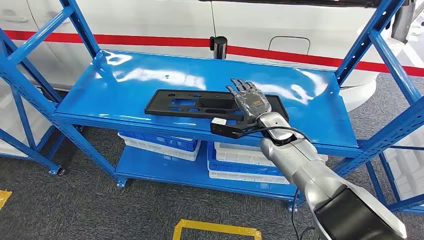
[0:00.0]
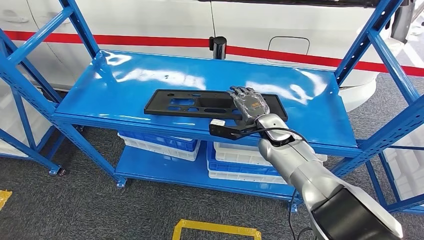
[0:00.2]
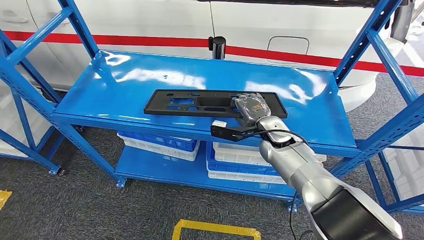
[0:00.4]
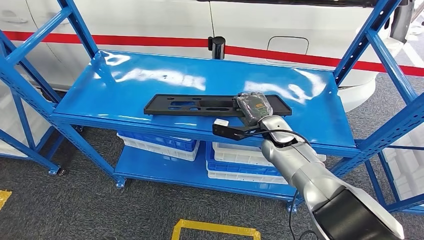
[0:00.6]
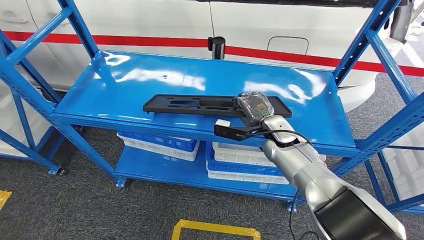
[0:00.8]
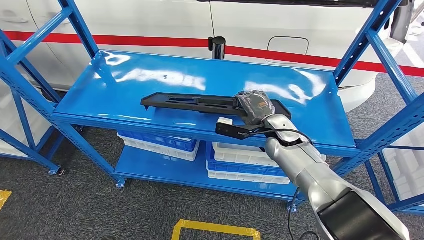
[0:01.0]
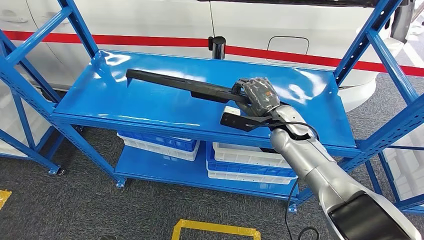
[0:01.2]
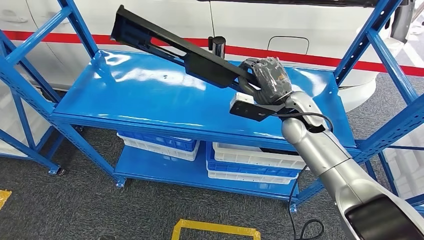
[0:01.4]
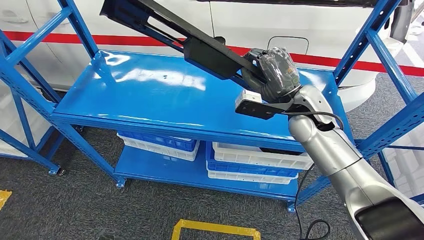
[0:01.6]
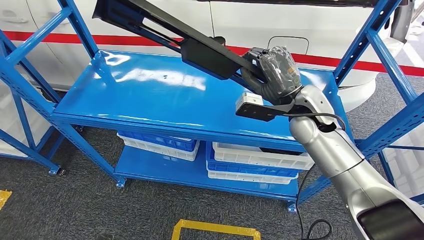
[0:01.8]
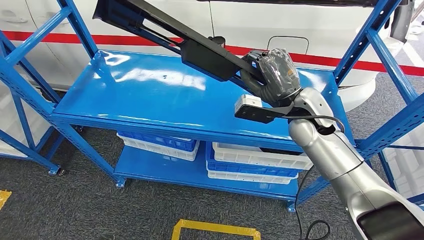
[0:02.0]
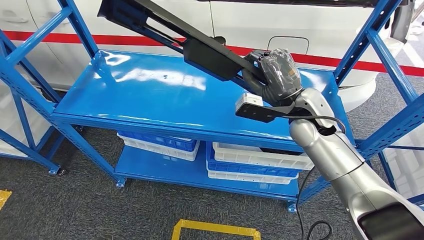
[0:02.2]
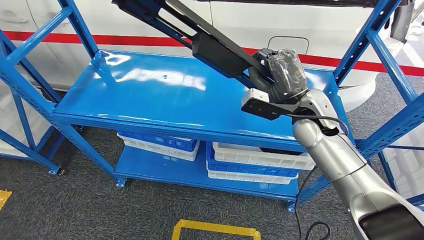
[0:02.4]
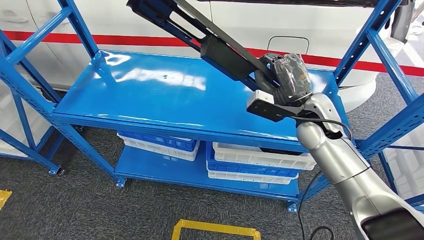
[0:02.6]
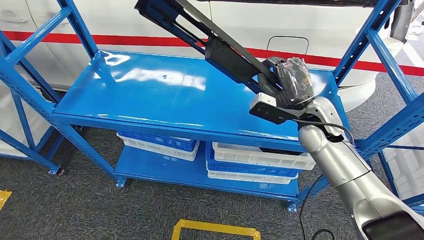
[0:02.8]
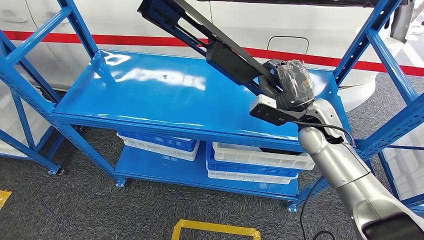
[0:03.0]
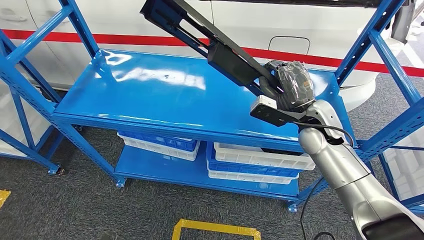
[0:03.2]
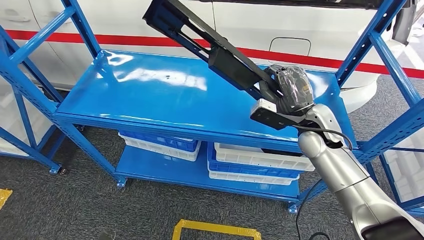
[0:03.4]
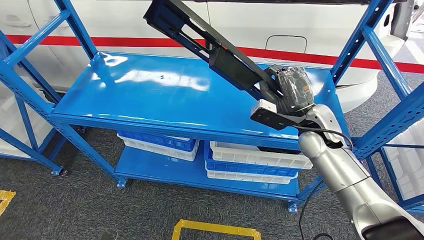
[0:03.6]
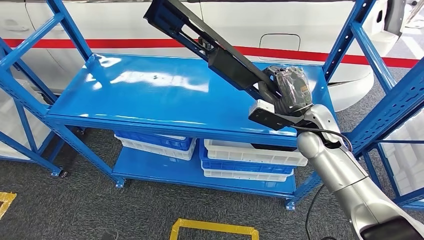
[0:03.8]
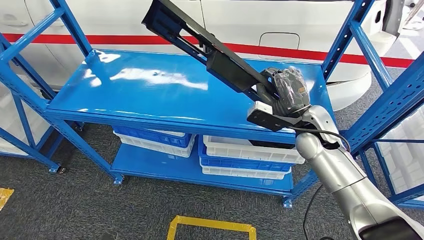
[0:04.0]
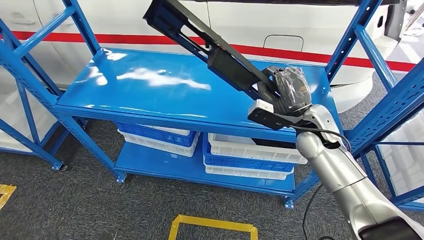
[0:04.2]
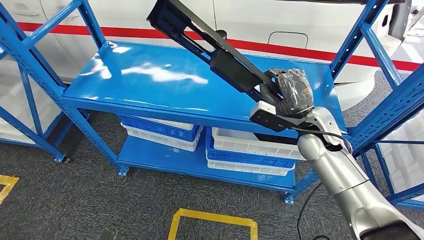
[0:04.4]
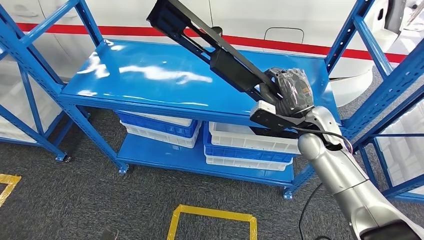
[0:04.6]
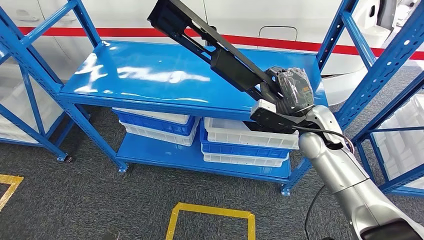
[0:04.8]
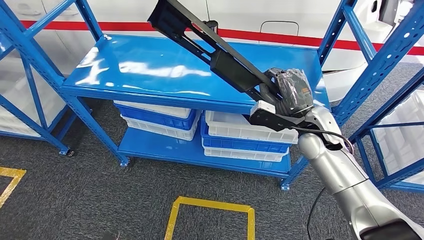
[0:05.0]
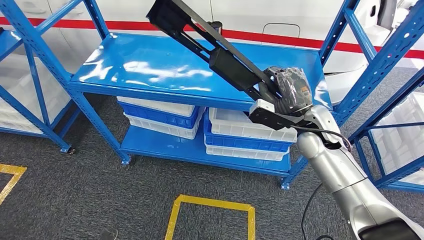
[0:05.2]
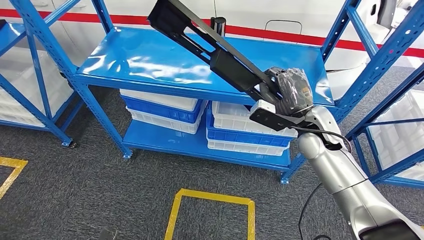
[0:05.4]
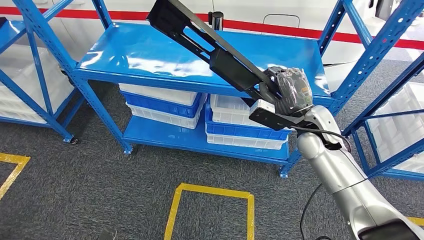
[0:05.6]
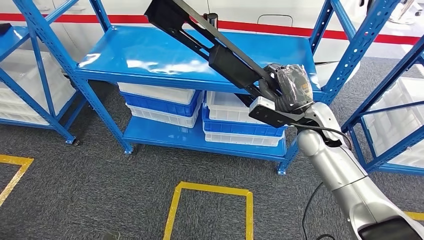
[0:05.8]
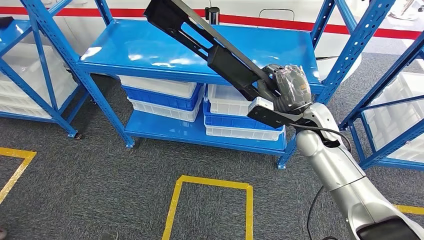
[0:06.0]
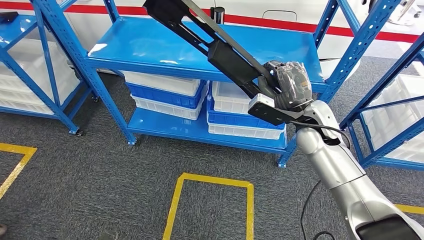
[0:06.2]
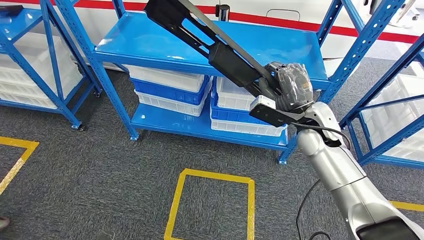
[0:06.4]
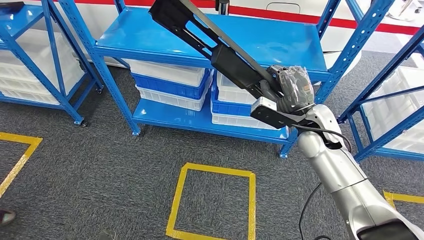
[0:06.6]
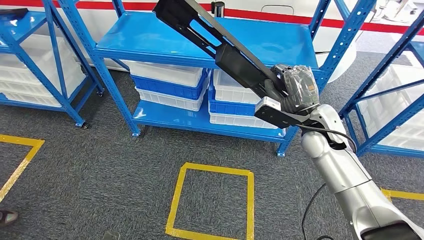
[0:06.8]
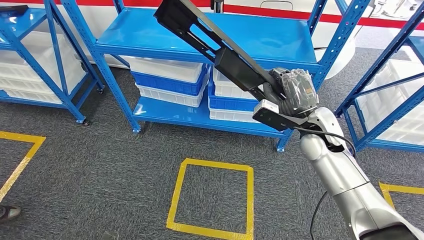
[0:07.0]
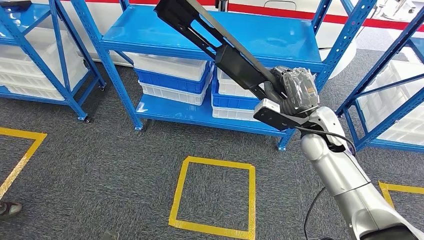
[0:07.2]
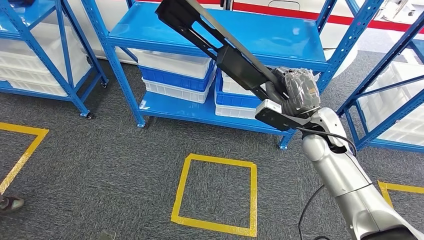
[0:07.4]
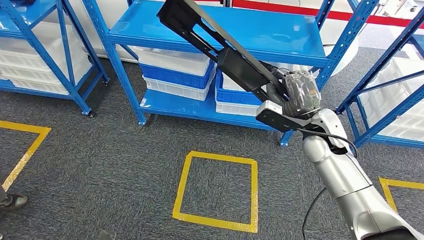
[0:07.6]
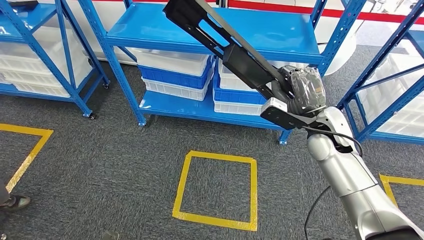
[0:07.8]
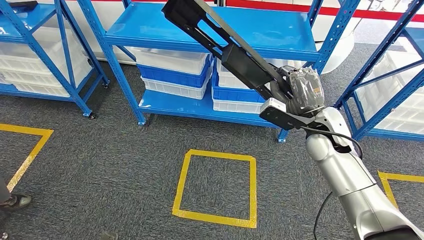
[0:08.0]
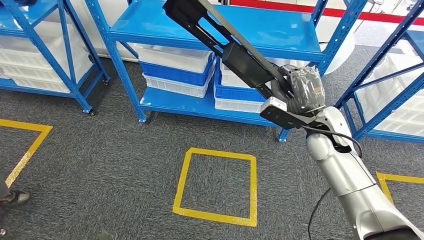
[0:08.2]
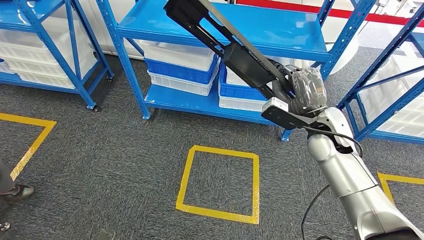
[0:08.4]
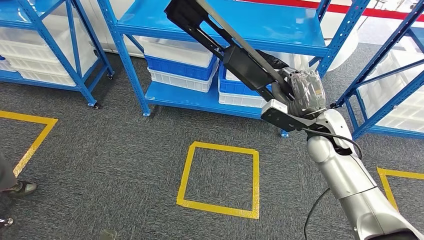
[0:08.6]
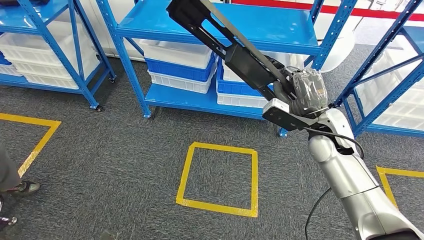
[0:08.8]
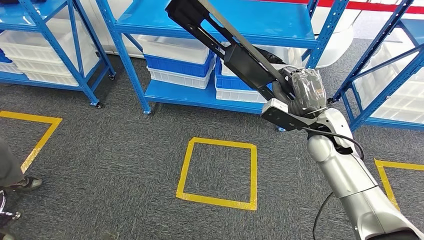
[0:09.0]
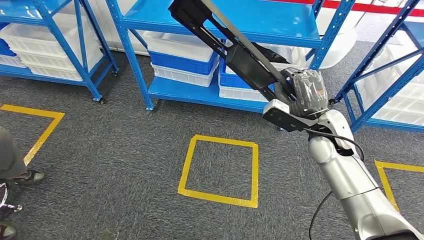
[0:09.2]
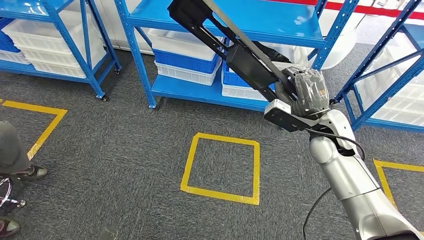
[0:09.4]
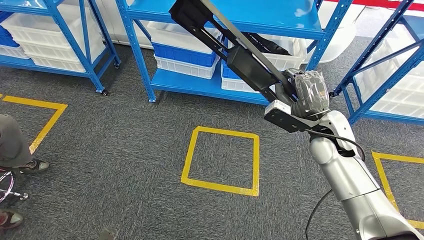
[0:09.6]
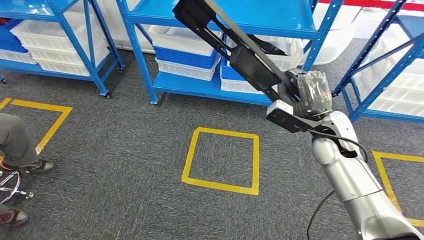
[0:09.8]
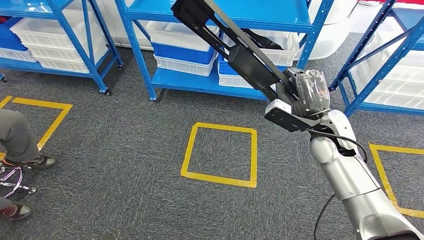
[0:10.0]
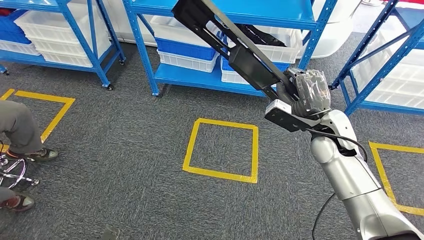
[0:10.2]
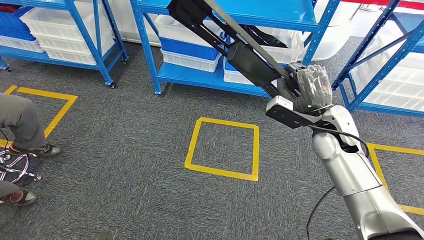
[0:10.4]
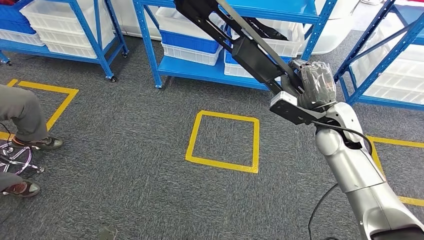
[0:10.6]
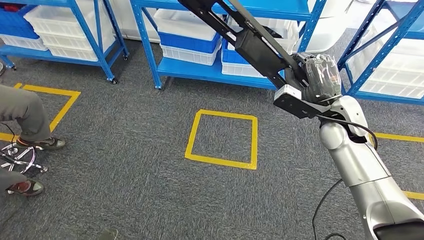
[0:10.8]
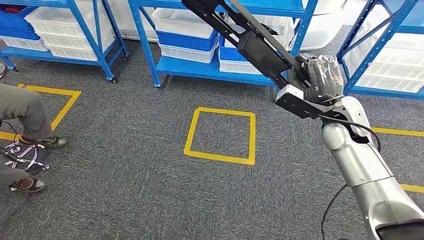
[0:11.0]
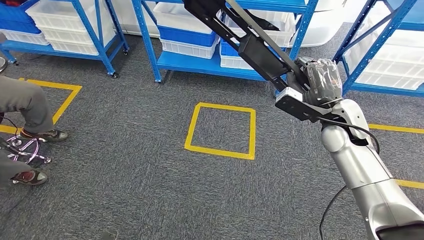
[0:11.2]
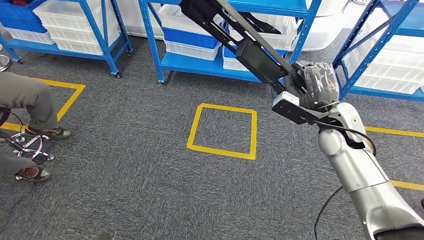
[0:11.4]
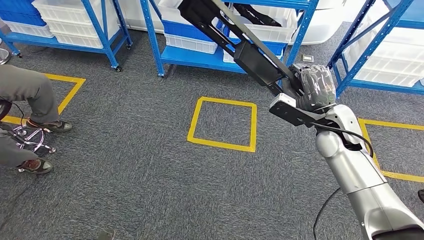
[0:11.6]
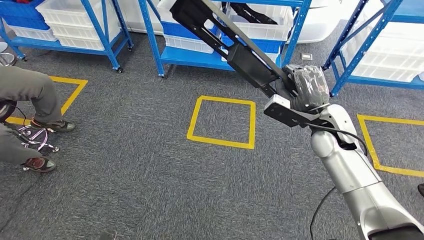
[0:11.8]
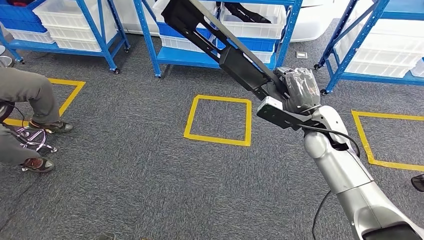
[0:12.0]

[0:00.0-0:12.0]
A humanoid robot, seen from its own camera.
Step, 0:00.0 to 0:05.8: Pick up the large material from the shelf.
0:01.6 to 0:03.0: The hands move only a little.

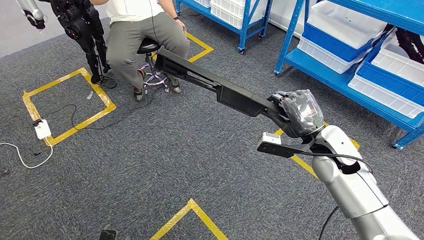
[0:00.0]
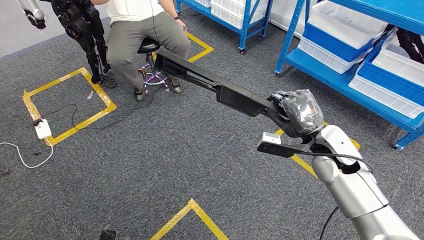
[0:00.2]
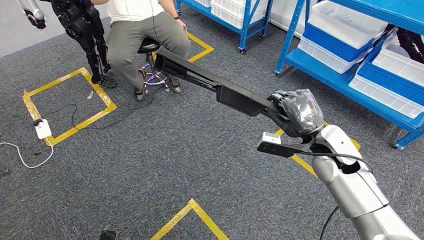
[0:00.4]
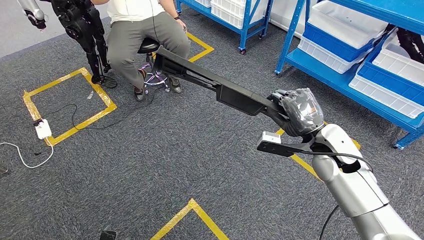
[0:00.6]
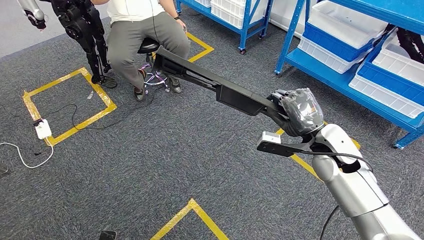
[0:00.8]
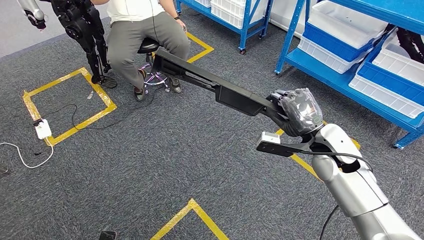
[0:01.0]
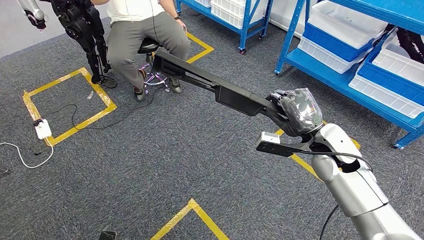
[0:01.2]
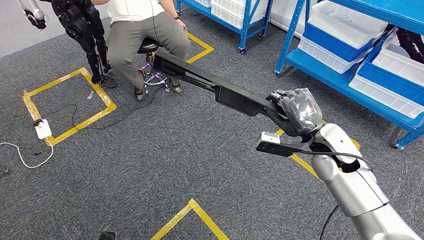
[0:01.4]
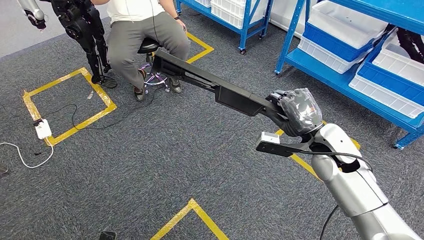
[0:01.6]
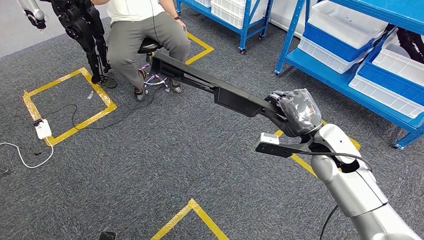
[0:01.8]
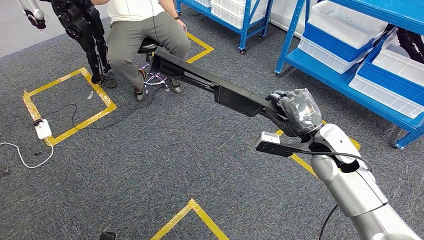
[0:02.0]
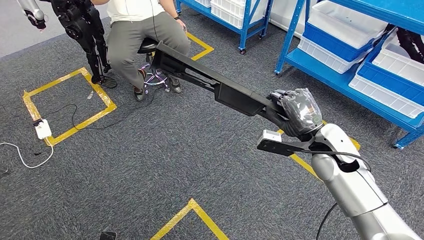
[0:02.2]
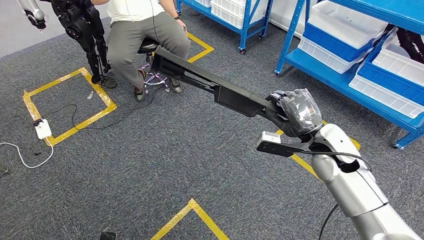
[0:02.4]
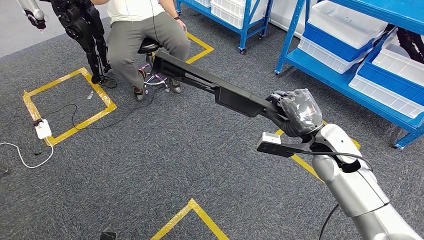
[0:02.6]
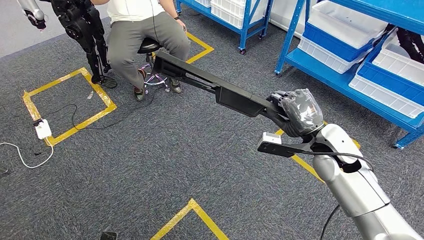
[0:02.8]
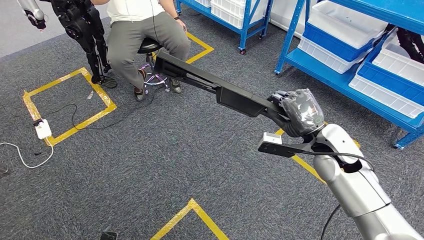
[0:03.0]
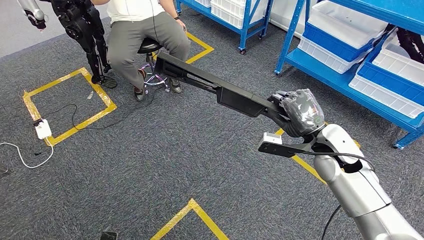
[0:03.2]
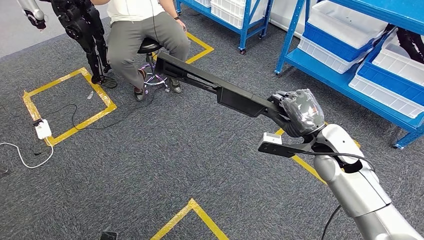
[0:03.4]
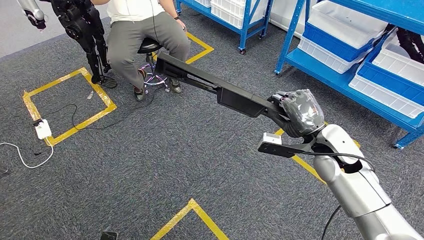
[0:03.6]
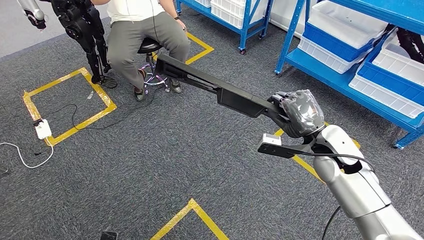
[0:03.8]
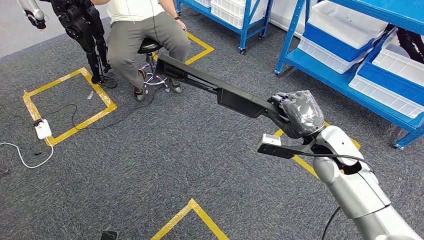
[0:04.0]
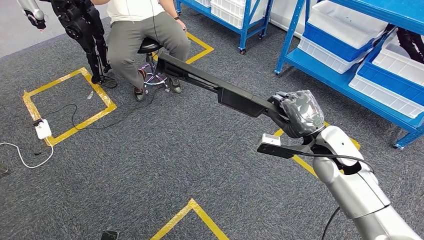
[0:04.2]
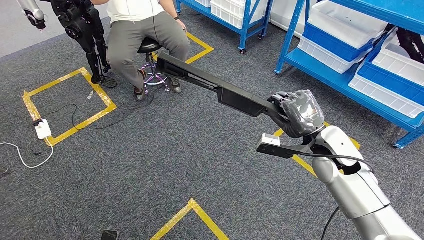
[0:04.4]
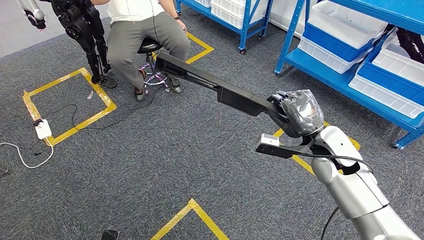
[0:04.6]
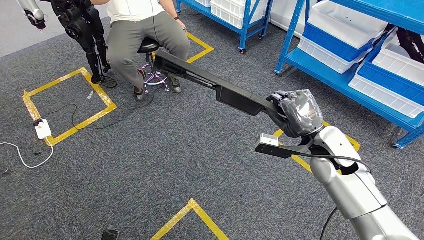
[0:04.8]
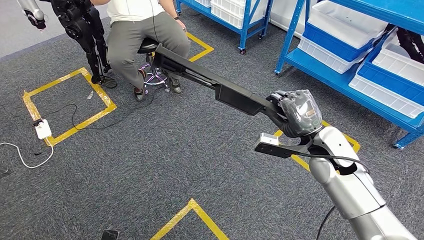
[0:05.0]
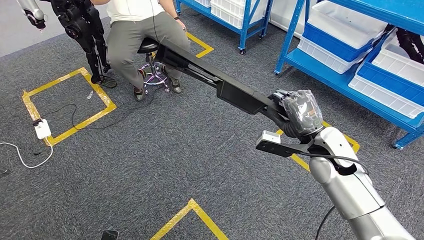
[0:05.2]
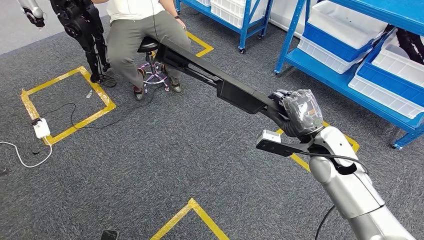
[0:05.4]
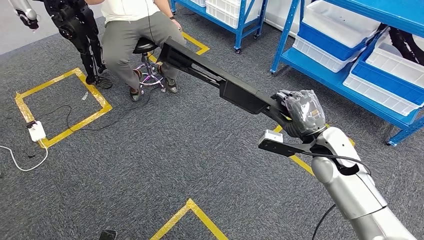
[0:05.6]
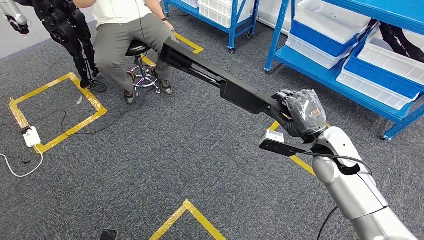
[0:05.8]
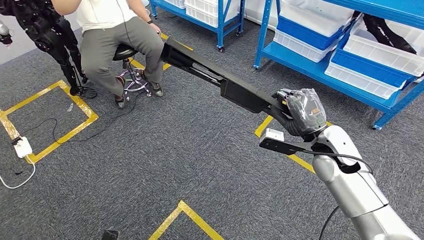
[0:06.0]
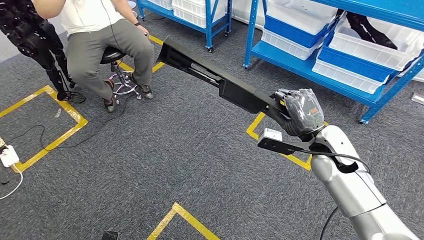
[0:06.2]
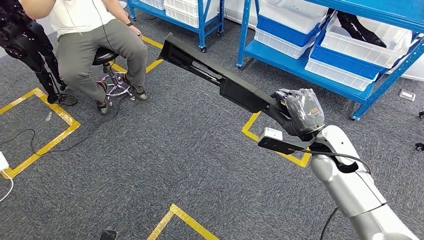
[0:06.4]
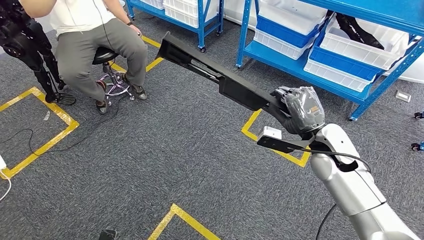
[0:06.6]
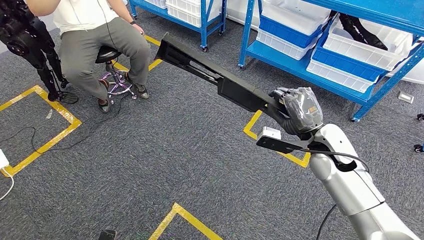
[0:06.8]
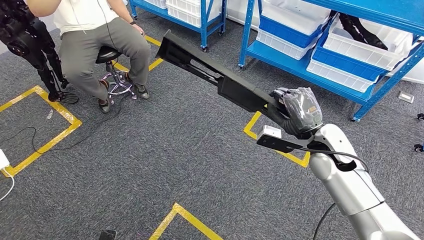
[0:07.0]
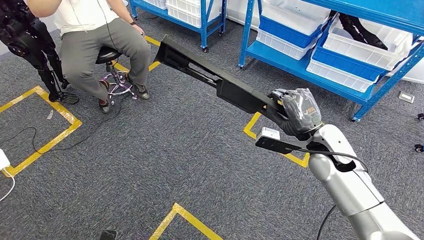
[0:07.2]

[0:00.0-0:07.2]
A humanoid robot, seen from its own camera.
0:00.0 to 0:04.4: Both hands stay about where they are.
